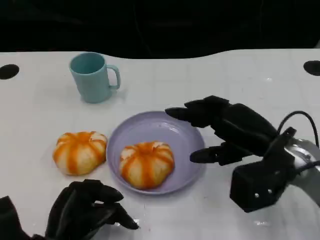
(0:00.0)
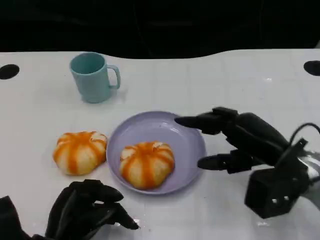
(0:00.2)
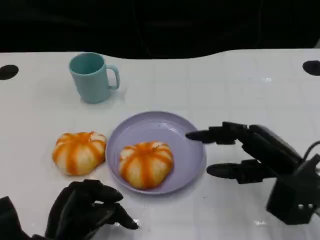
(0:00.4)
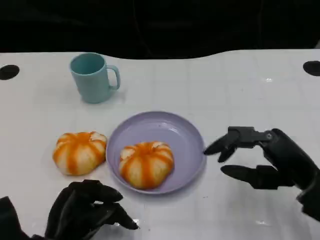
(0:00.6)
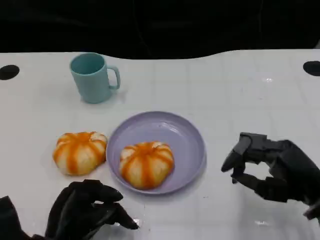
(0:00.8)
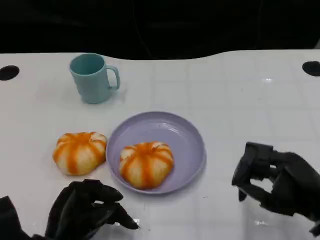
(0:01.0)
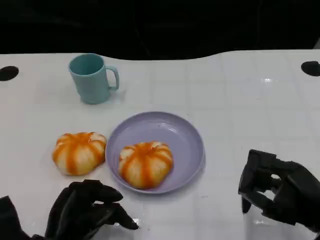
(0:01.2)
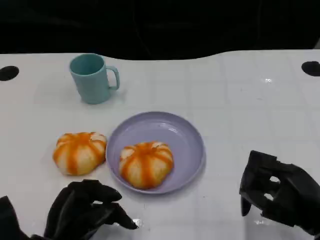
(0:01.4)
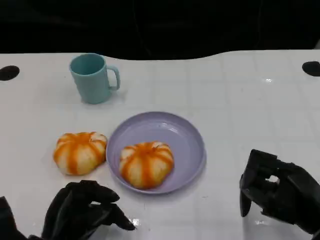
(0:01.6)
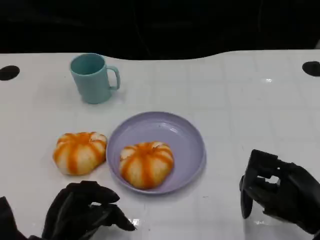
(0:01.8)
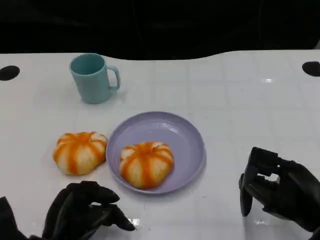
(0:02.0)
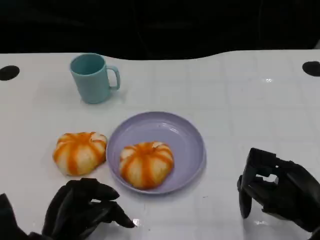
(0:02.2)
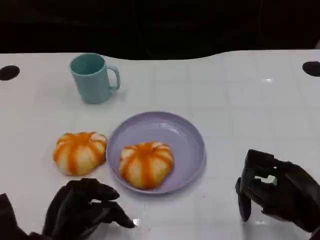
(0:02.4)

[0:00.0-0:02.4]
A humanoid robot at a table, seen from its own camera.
Task of the whole recording: Grasp the bread from the table and place it into the plate.
0:00.0 to 0:01.2: The right hand travels backward and to the right by some 10 cm.
0:01.2 to 0:02.4: There are only small adjustments of the hands.

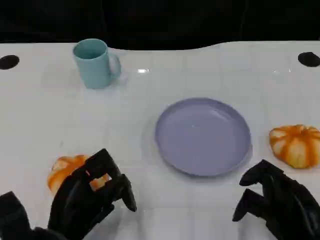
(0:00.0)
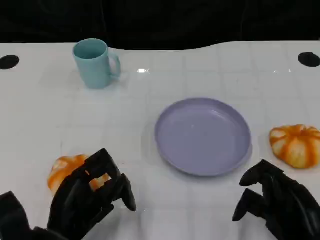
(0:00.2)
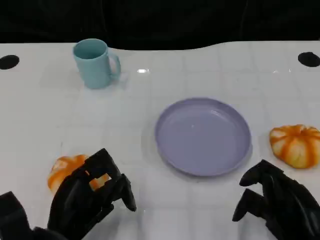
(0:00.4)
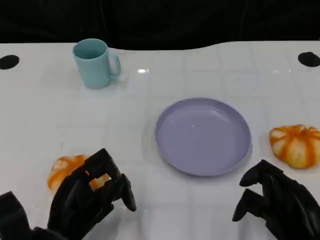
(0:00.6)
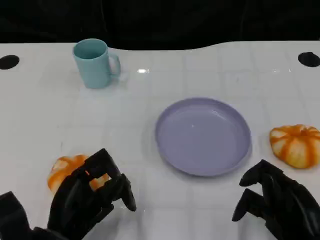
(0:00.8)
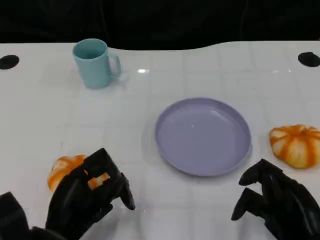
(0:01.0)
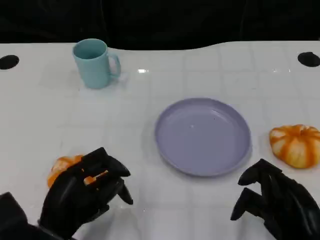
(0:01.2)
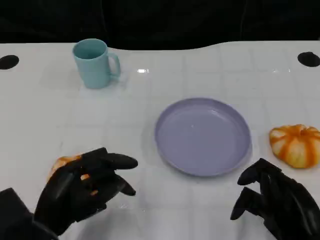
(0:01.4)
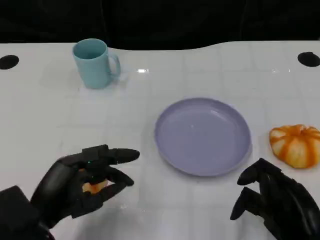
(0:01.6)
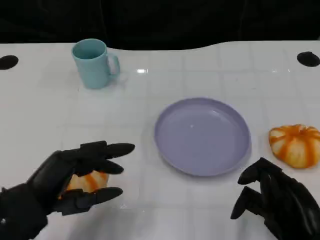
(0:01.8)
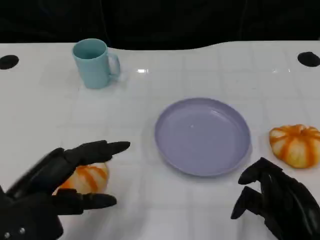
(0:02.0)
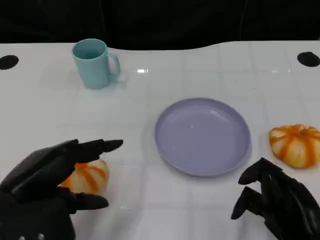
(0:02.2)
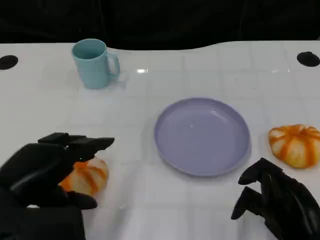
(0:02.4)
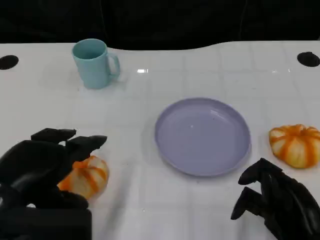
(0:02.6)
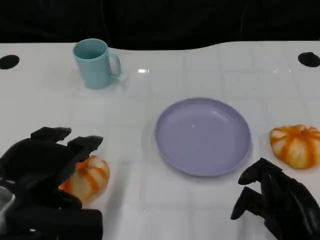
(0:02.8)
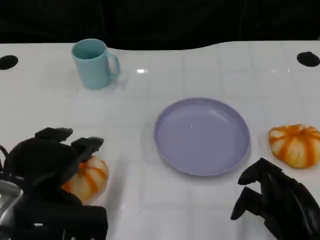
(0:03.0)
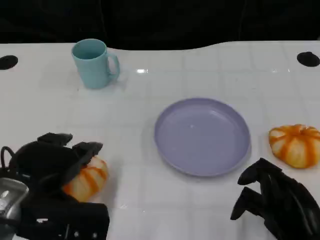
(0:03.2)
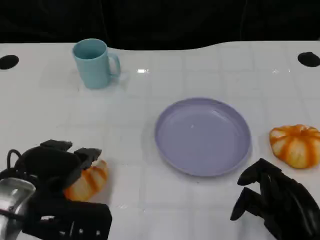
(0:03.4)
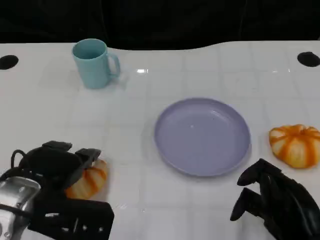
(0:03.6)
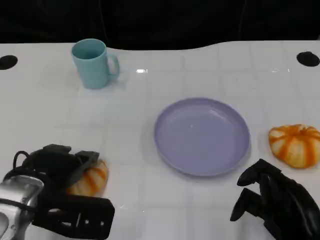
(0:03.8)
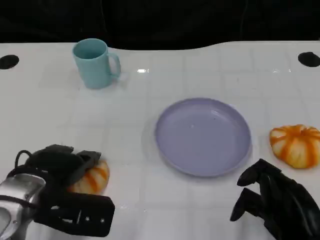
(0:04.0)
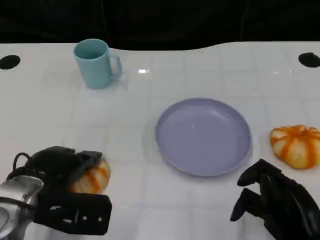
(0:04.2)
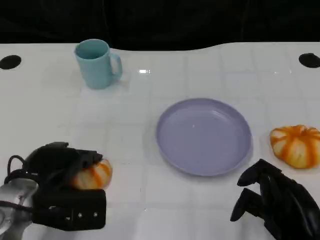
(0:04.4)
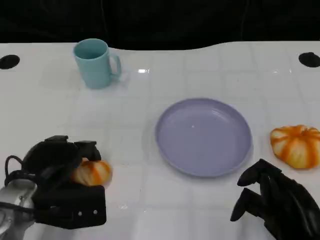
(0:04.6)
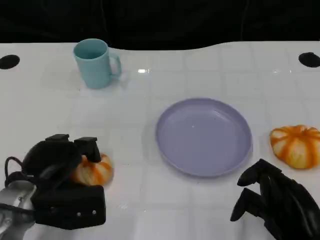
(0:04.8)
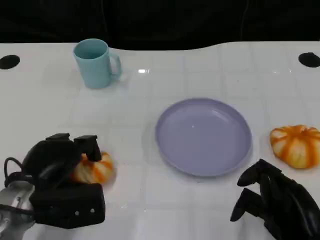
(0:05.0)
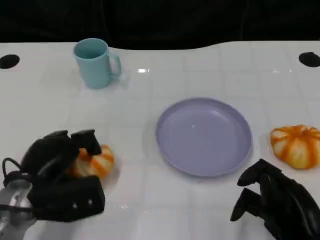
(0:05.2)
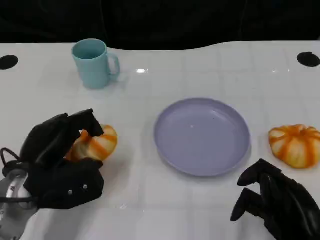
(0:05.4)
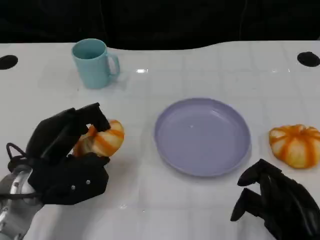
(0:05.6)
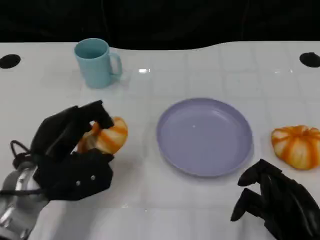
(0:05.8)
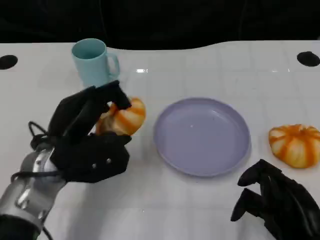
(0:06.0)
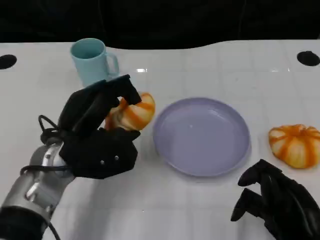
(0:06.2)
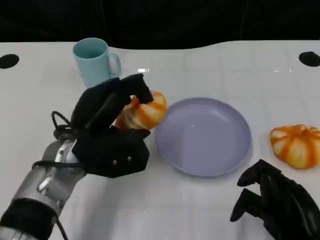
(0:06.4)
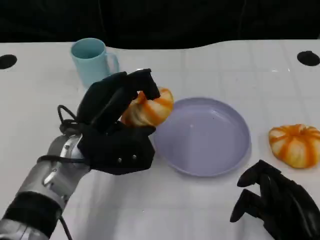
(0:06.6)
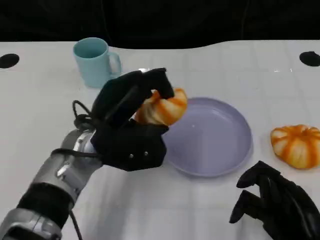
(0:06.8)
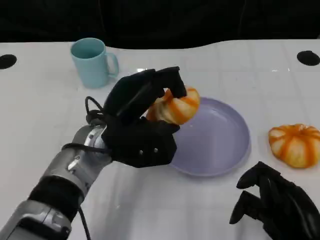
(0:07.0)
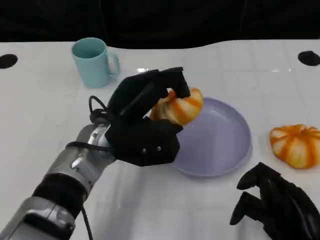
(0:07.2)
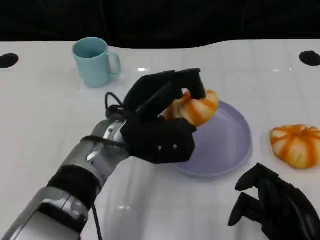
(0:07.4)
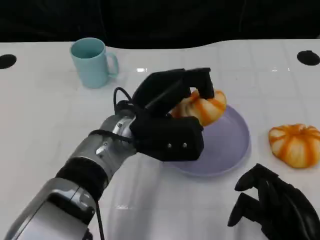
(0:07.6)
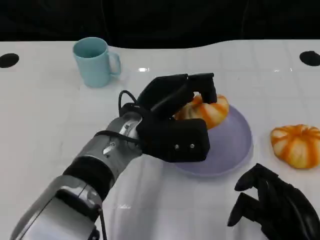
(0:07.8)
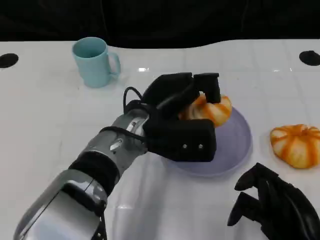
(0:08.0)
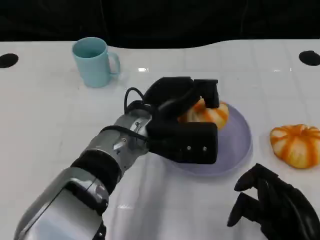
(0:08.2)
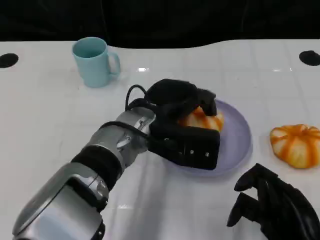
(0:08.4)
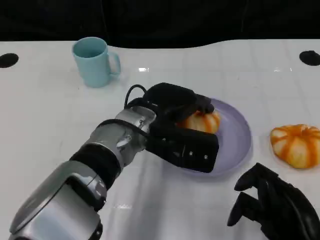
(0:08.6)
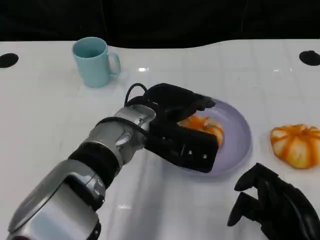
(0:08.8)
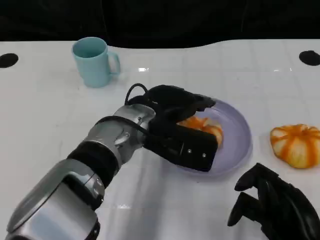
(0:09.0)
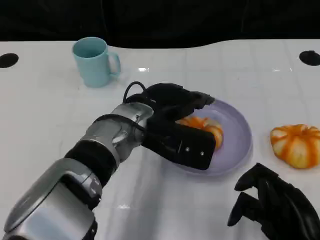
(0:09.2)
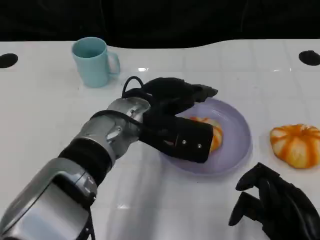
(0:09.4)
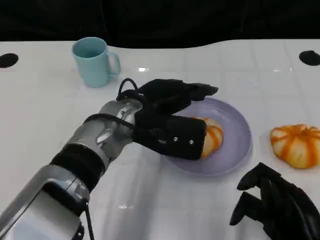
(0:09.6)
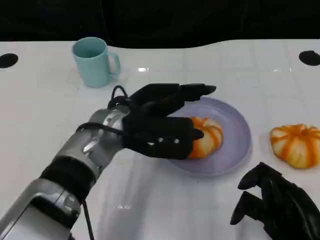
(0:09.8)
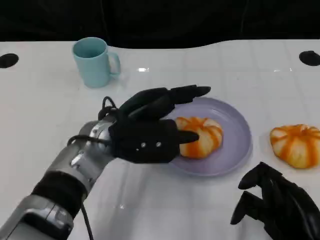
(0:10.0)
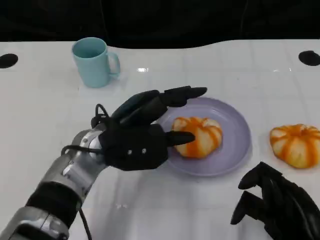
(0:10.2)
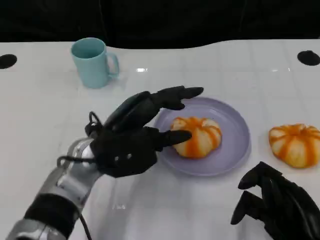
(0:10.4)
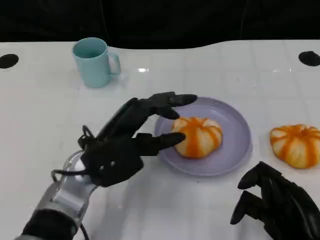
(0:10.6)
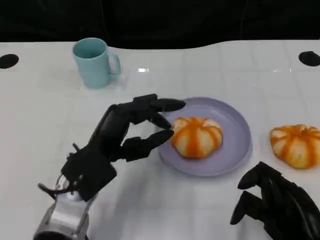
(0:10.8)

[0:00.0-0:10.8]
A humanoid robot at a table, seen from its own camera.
Task of the whole recording: Grasp the bread from the table and place it into the plate.
0:00.0 to 0:01.6: The left hand changes place by roughly 5 cm.
0:01.6 to 0:03.0: The left hand shifts approximately 5 cm upward.
0:03.0 to 0:04.6: The left hand goes roughly 10 cm downward.
0:04.6 to 0:06.2: The left hand shifts approximately 5 cm to the right.
0:06.2 to 0:07.8: The left hand goes about 10 cm to the right.
0:09.2 to 0:10.8: The left hand is displaced to the left, backward and downward by some 10 cm.

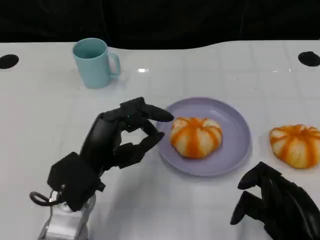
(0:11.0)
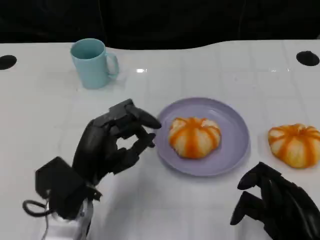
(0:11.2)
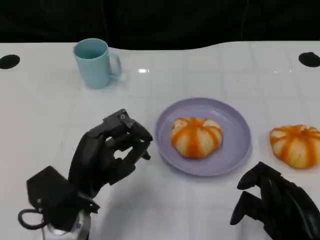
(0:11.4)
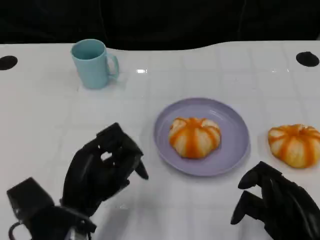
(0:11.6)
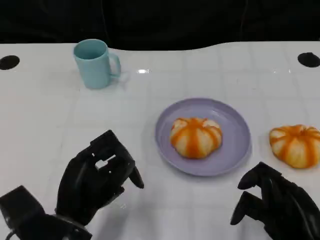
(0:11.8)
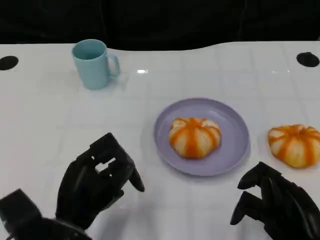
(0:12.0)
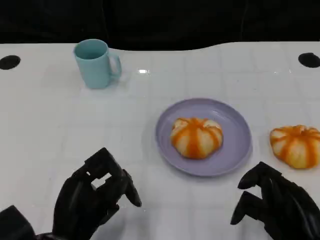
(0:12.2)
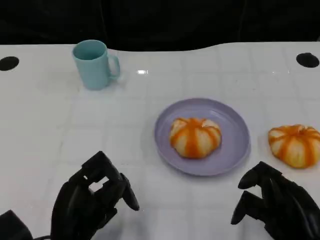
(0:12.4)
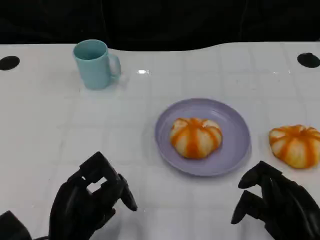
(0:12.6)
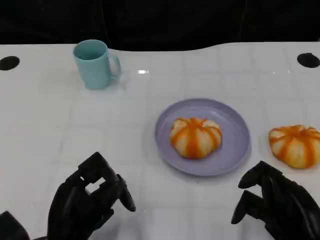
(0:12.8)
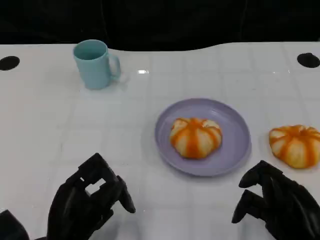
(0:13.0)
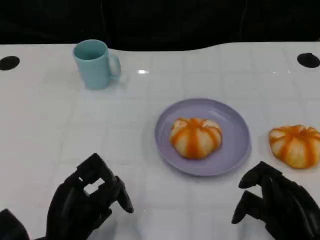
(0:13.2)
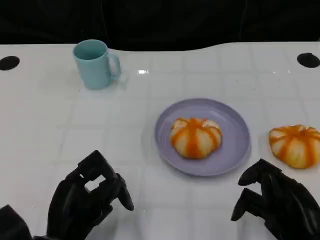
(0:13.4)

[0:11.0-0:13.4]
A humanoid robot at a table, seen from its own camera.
Task of the whole recording: Grasp the bread from the table and place it into the plate.
0:11.0 to 0:12.2: The left hand heads backward, covering about 10 cm.
0:12.2 to 0:13.4: Both hands stay about where they are.

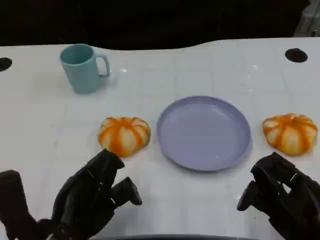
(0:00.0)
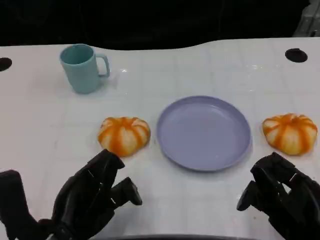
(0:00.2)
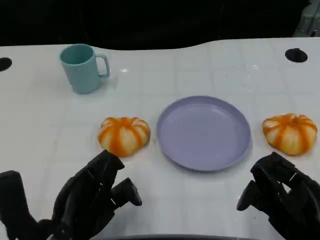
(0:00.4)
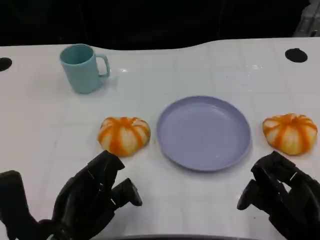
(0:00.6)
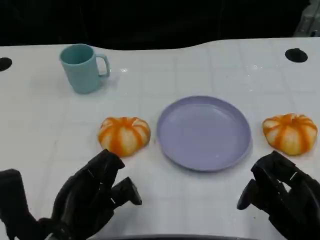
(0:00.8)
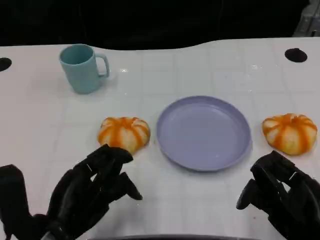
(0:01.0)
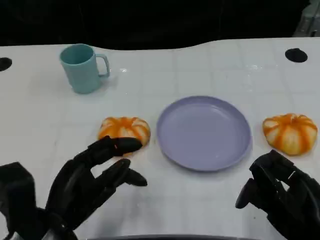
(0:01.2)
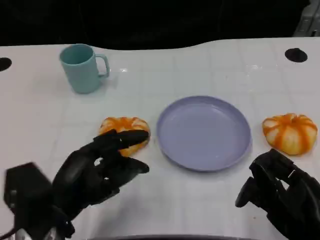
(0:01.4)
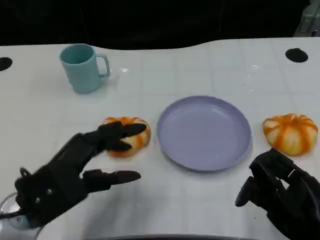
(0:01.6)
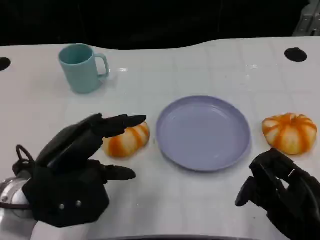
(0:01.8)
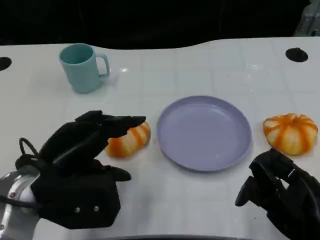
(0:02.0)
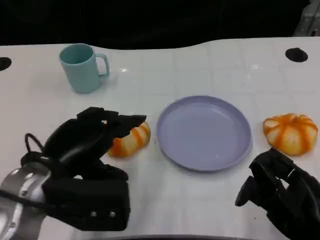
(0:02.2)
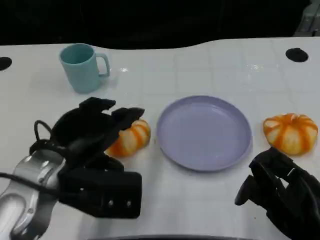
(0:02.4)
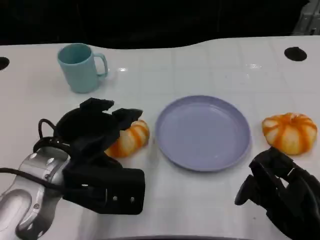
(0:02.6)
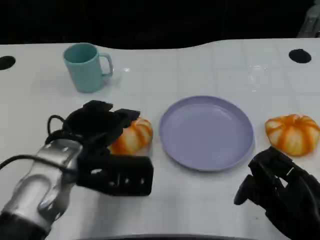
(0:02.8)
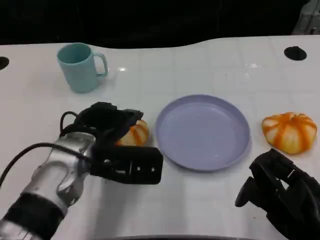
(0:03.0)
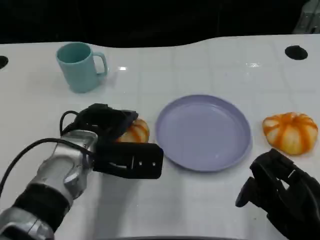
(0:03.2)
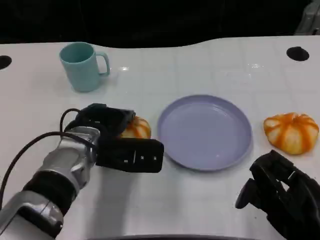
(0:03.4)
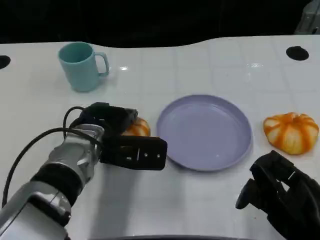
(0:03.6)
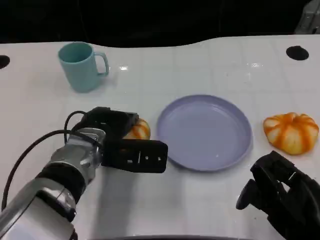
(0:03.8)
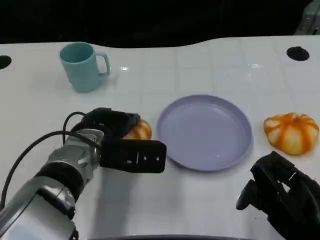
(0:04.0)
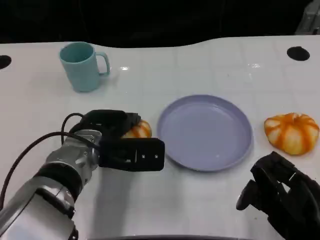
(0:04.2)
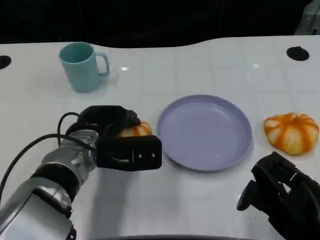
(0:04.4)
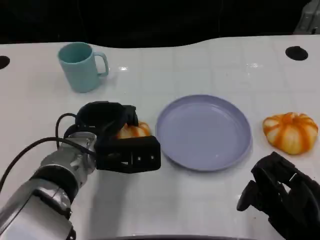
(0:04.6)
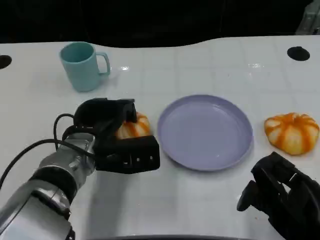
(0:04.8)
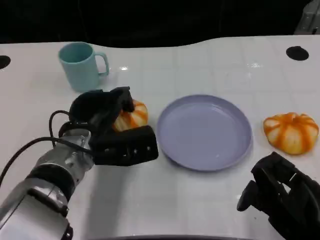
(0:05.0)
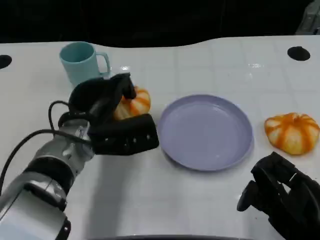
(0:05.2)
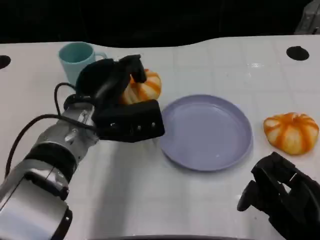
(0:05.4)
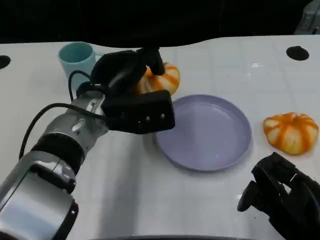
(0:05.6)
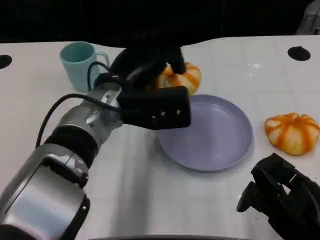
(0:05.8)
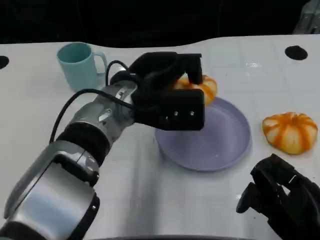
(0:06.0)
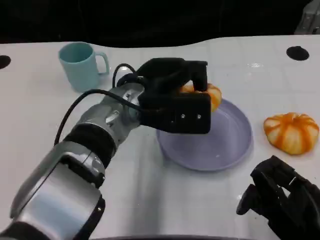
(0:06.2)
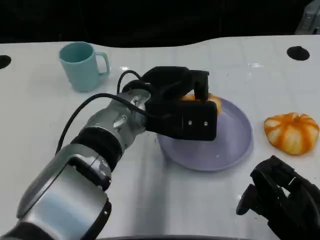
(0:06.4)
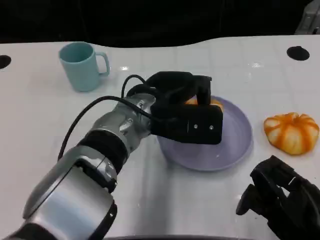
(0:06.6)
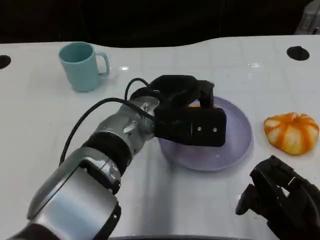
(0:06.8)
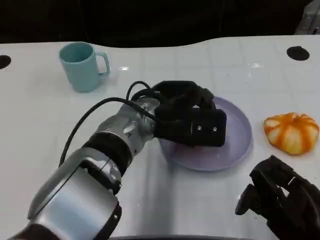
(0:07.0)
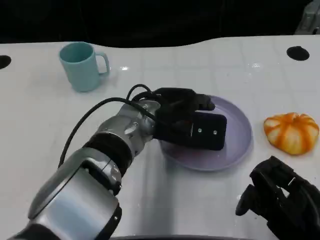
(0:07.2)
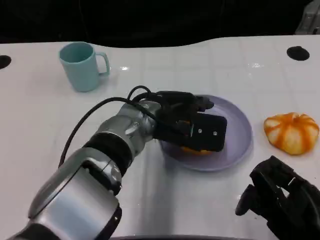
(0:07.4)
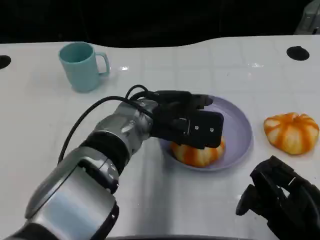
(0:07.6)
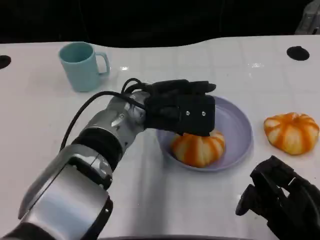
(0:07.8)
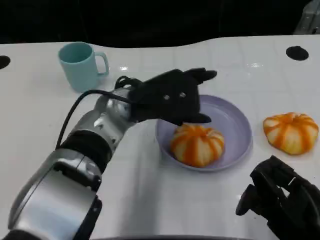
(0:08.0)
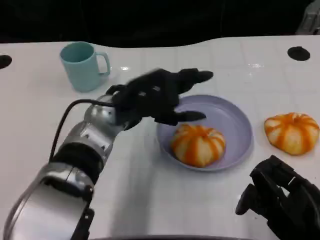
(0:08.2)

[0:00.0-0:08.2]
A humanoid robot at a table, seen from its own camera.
Task of the whole recording: Grasp the bread from the table and place it into the plate.
0:00.0 to 0:01.6: The left hand ends up roughly 5 cm from where it was.
0:01.6 to 0:03.2: The left hand shifts approximately 10 cm forward and to the right.
0:05.0 to 0:06.6: The left hand goes approximately 10 cm to the right and upward.
0:06.6 to 0:08.2: The left hand shifts about 5 cm to the left.
